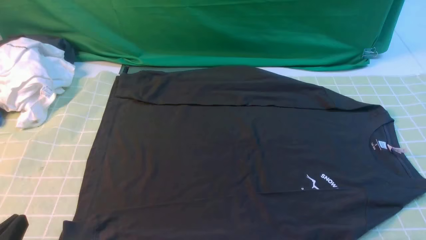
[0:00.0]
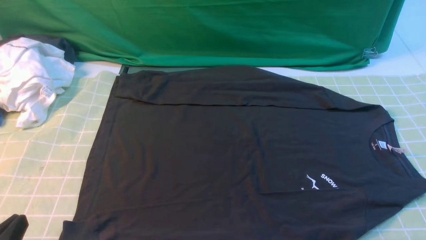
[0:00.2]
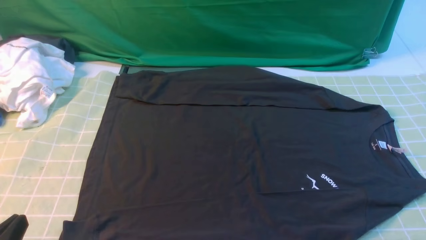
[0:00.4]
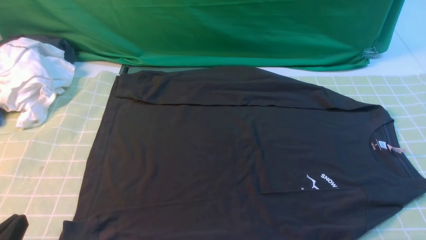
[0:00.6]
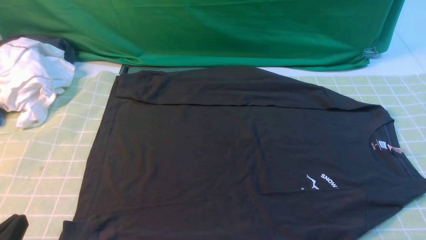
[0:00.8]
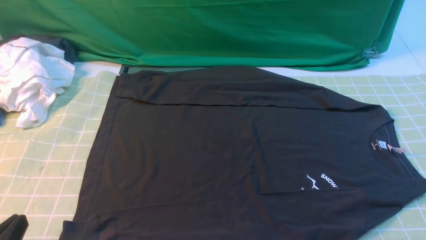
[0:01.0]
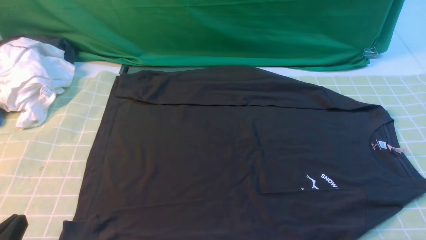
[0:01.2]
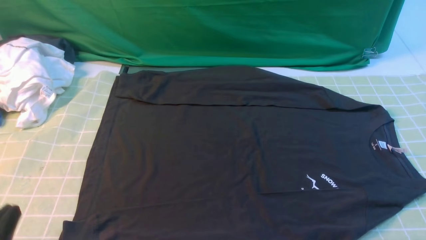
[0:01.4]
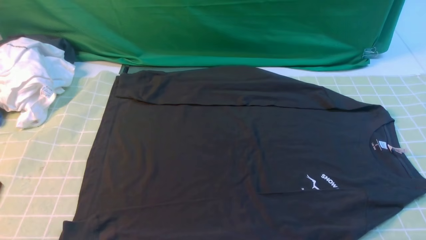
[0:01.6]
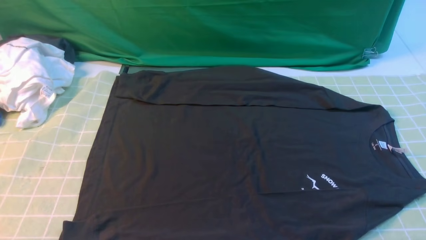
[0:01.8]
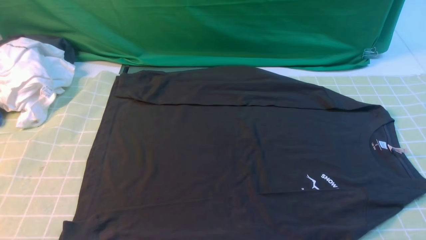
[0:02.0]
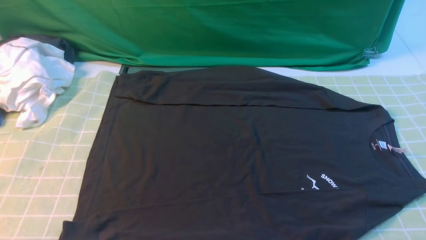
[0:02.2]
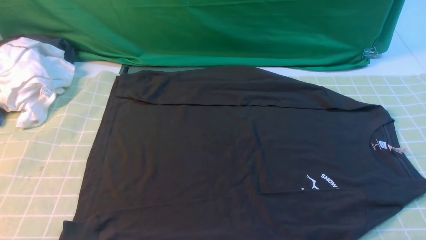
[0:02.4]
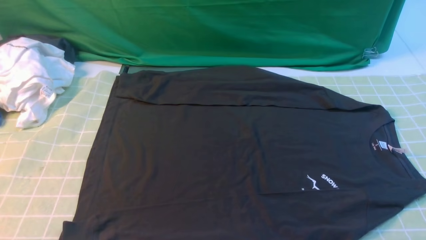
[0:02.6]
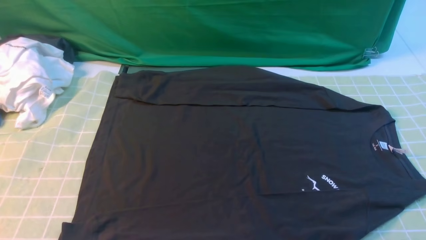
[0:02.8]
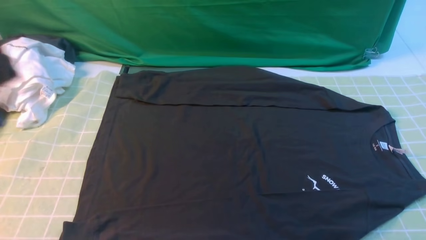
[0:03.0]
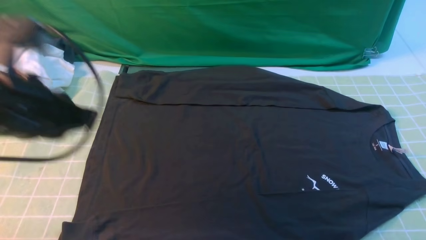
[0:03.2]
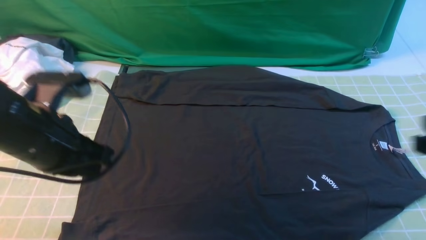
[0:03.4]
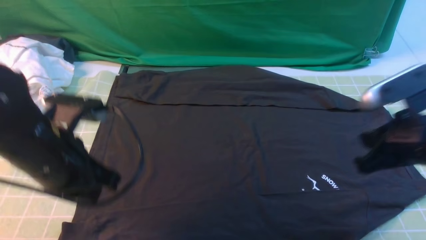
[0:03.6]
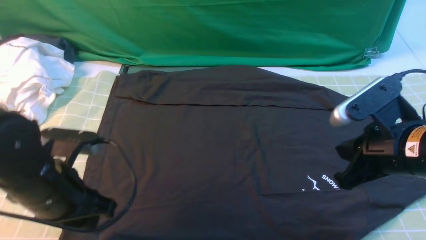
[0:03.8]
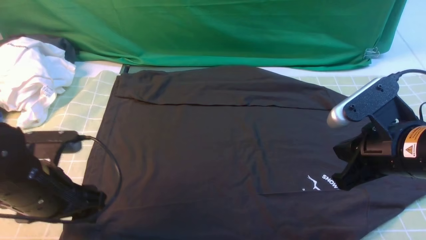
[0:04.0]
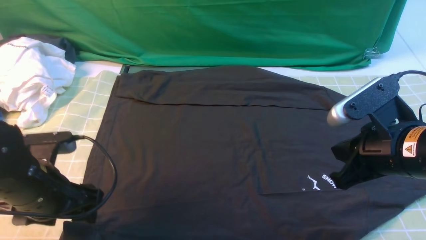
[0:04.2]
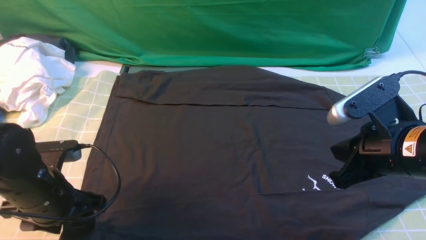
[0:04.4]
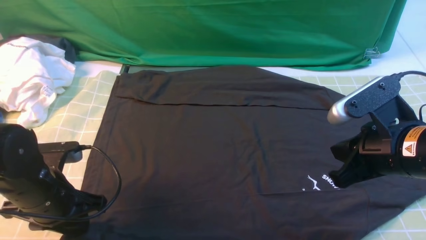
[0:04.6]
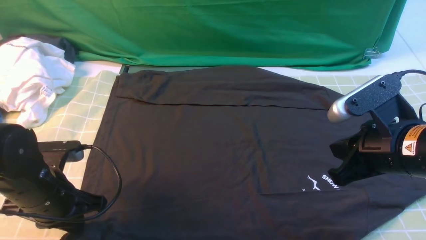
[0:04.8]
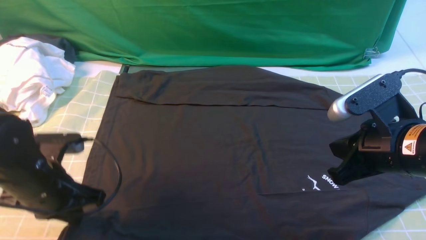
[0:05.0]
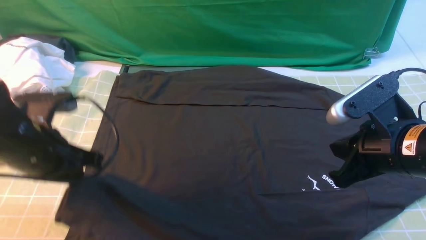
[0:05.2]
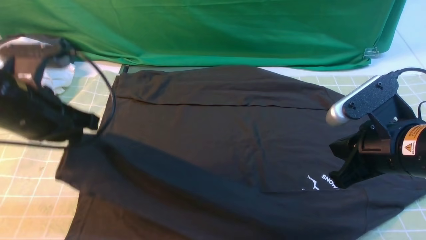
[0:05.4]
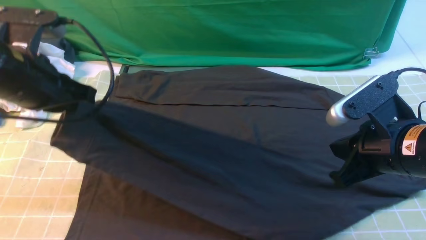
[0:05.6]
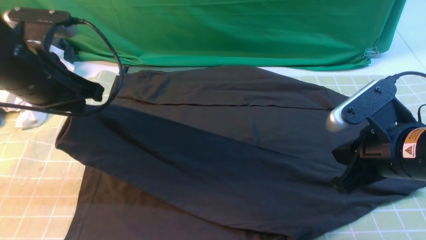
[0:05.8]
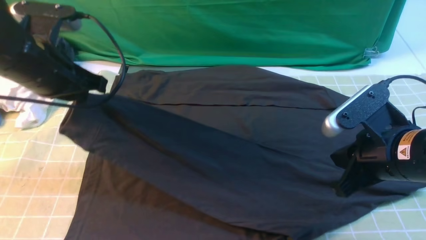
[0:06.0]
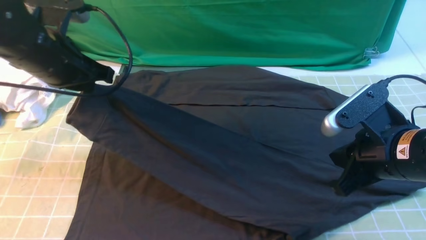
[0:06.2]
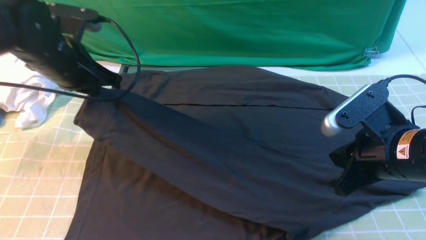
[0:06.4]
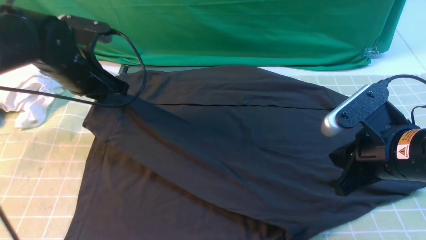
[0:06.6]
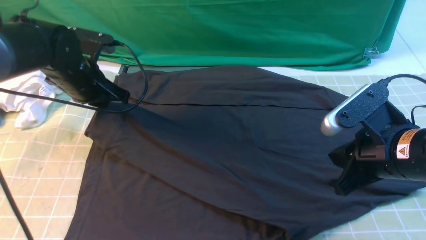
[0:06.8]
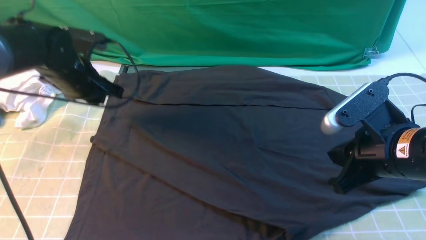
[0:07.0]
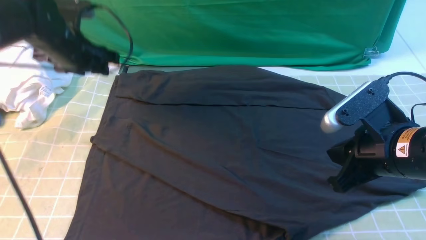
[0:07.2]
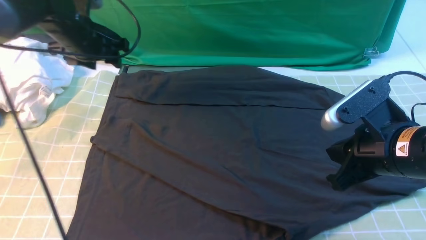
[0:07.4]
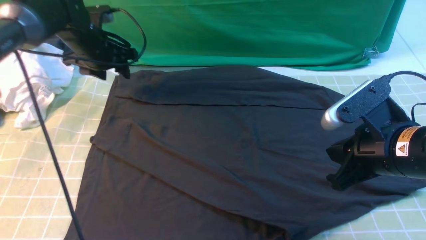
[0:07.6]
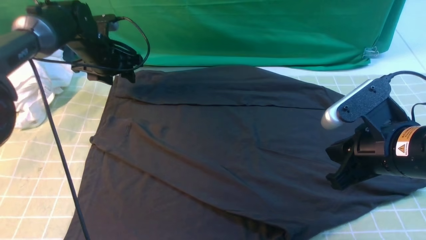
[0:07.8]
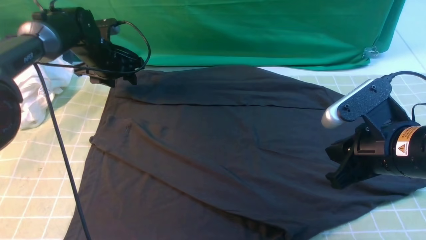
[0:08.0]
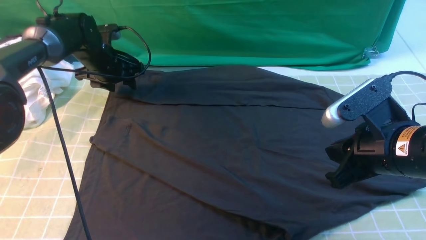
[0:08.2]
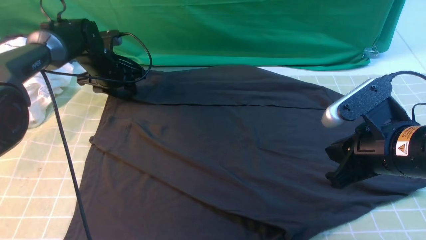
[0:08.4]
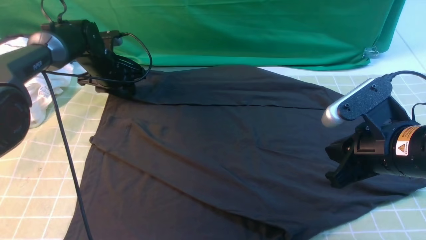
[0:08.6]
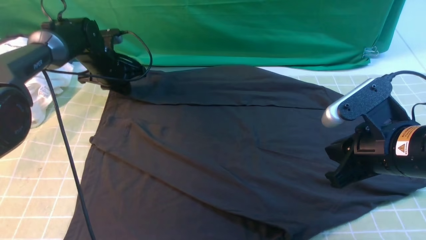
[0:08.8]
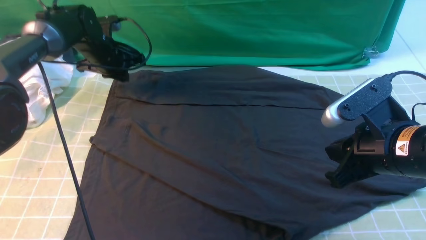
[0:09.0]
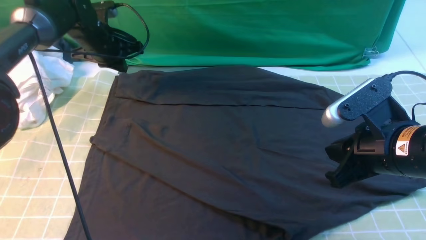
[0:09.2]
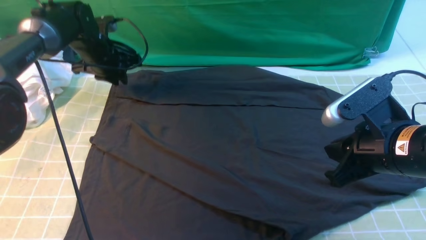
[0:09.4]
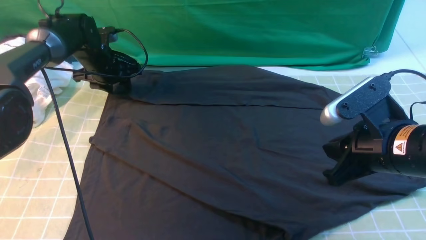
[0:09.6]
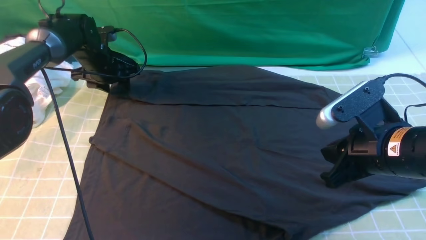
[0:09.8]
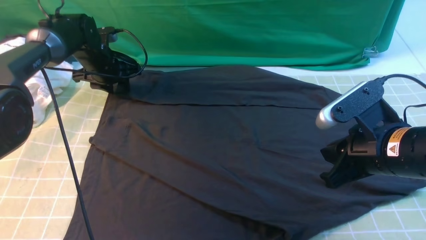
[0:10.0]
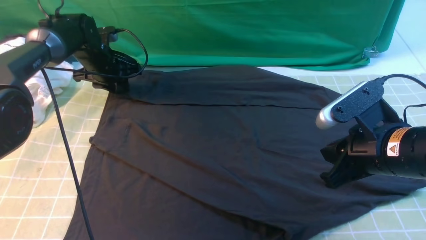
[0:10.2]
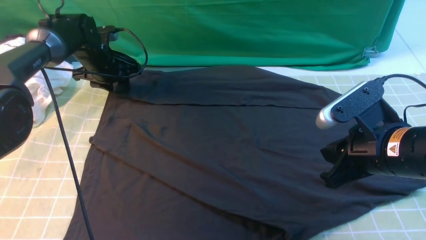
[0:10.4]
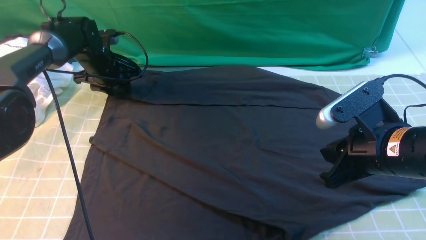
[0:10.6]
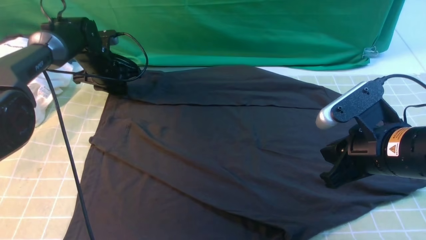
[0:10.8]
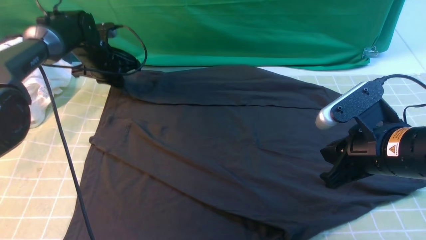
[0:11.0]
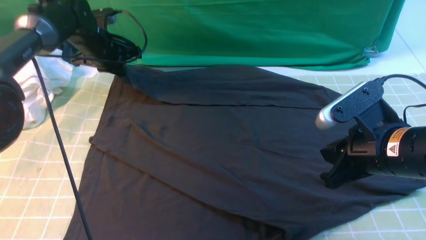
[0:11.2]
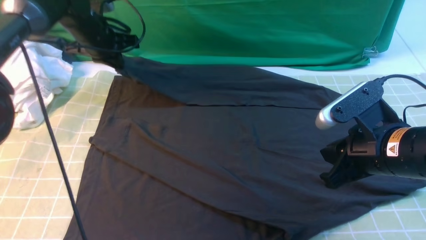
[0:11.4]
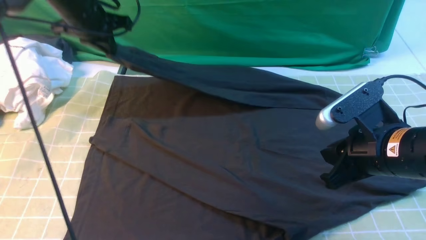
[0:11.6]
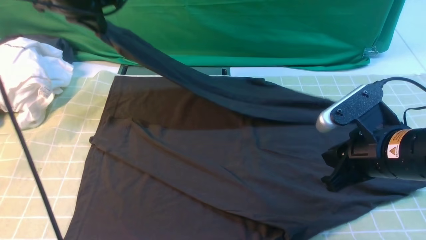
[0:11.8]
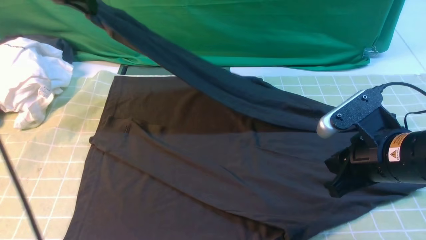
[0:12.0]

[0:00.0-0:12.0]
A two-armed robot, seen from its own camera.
Step, 0:00.0 to 0:04.8: use the left arm to clamp the cuff closest to it.
Step, 0:05.0 to 0:07.0: use the left arm to drag and place the cuff at the centered position on the left edge of the fabric.
Step, 0:07.2 to 0:11.0: use the left arm to clamp the cuff farthest from it.
0:01.6 to 0:03.0: The left gripper shifts some 20 cm upward and forward.
0:03.0 to 0:04.4: The right gripper shifts approximately 20 cm forward, to the left and downward, while the left gripper moves downward, approximately 20 cm, and opens up.
0:04.4 to 0:06.0: The left gripper travels upward and forward by some 15 cm, and closes.
0:06.0 to 0:07.6: The left gripper shifts approximately 20 cm forward and downward, and opens up.
0:07.6 to 0:09.0: The left gripper closes up.
0:09.0 to 0:10.4: The left gripper opens up.
0:10.4 to 0:12.0: The left gripper heads upward and backward, covering approximately 25 cm, and closes.

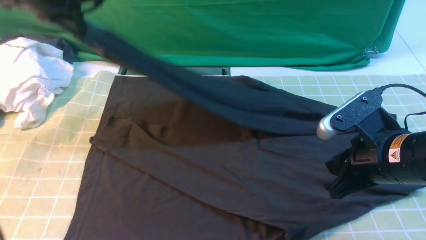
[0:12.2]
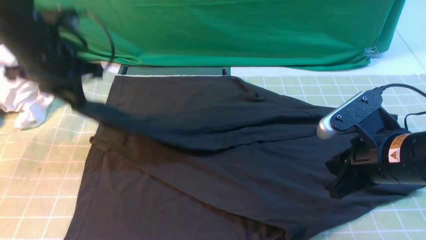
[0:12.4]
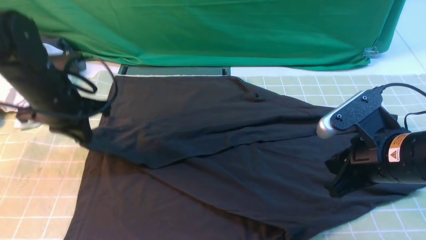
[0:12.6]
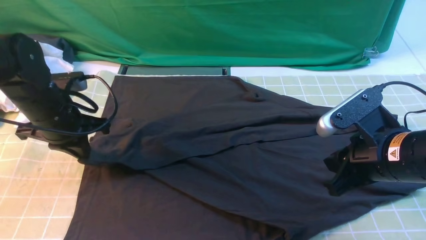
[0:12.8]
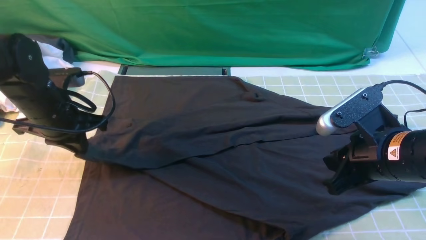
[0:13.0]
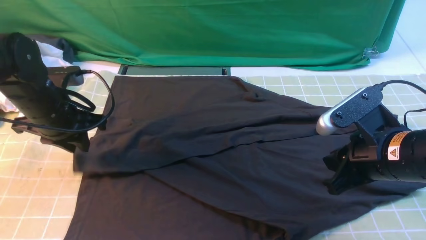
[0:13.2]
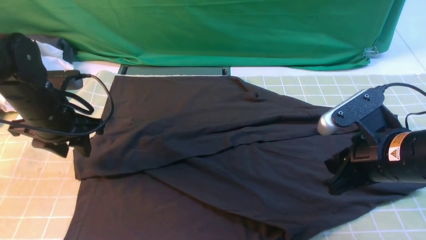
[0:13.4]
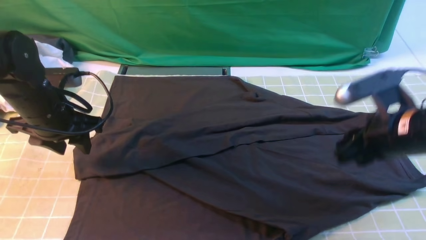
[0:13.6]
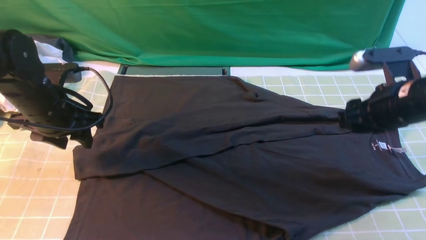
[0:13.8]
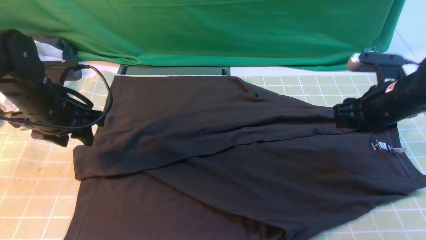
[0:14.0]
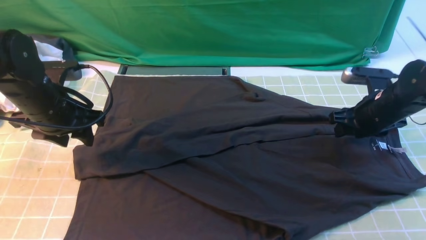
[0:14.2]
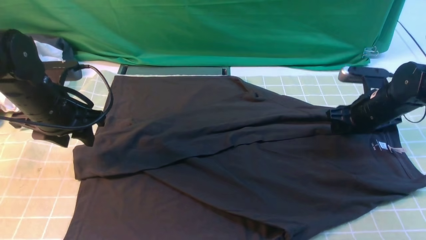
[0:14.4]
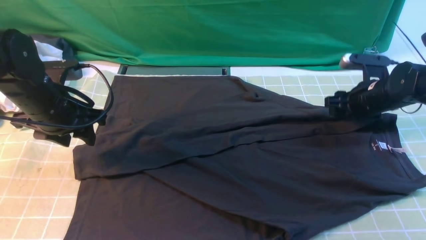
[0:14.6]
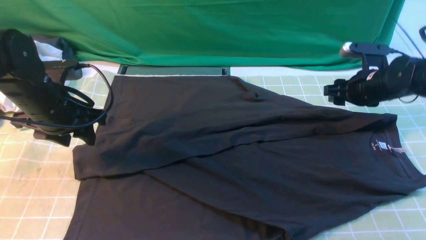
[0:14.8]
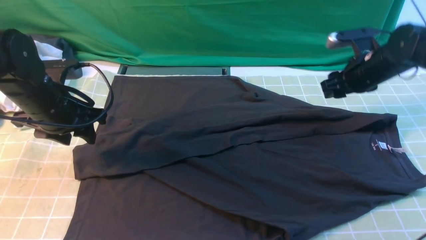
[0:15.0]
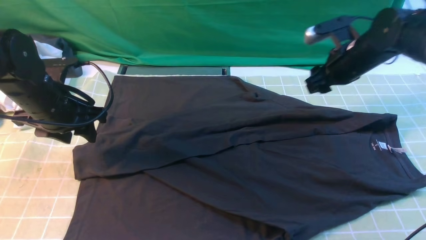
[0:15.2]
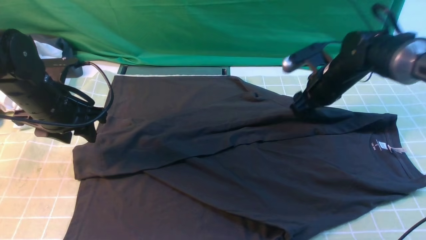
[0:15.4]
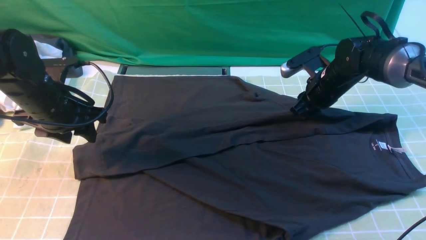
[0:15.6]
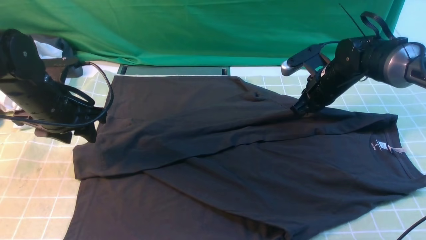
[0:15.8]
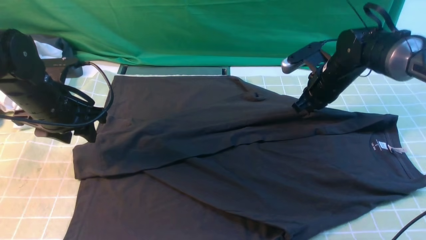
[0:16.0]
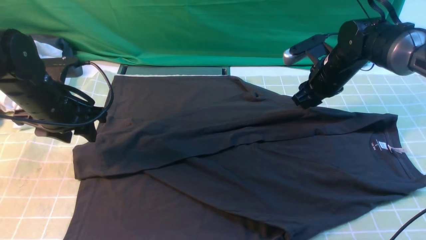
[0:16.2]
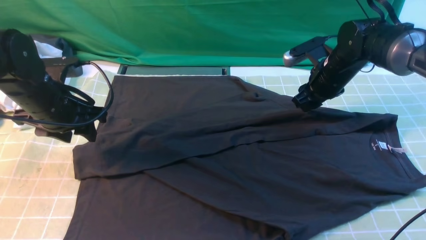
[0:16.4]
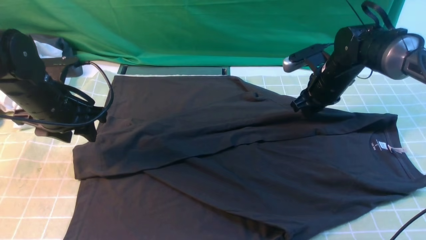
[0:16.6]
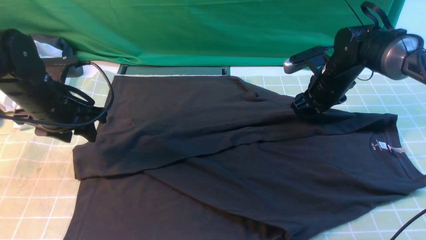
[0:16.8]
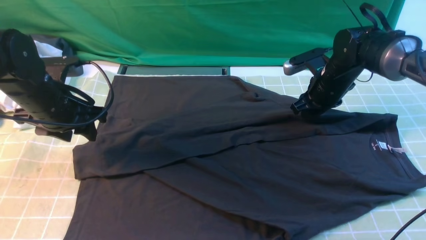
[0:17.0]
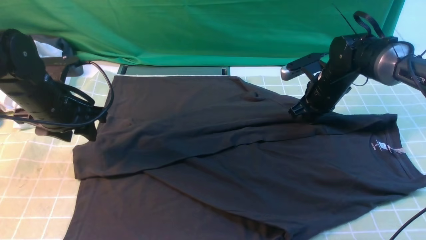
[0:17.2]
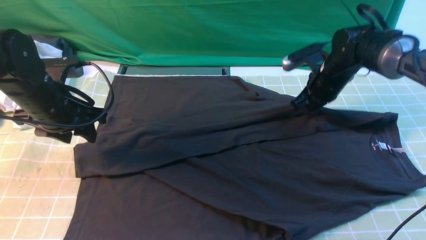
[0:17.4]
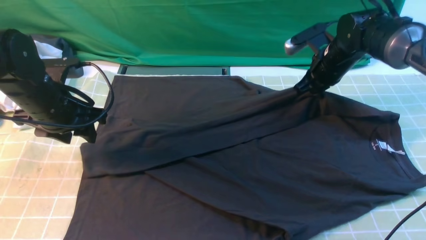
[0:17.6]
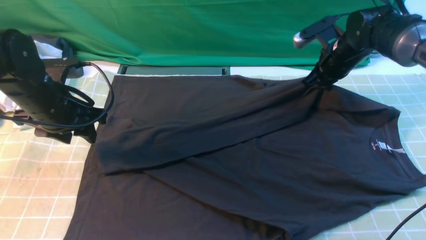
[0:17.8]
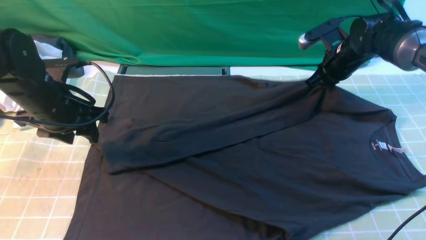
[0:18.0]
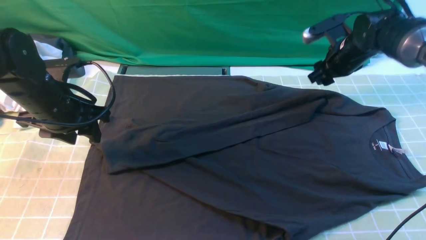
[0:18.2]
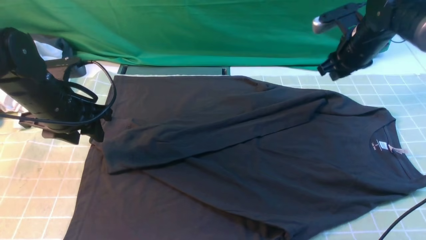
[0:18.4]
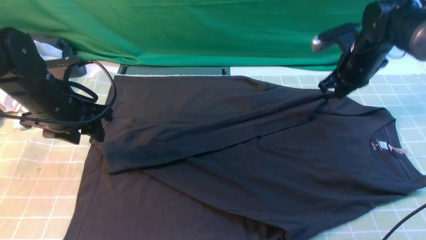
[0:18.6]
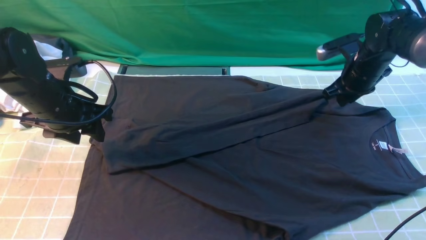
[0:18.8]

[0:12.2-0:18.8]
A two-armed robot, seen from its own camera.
0:12.2 to 0:13.8: The left gripper heads downward and backward, covering roughly 15 cm, and opens its fingers. The right gripper travels forward by roughly 10 cm, and opens.
0:13.8 to 0:15.4: The right gripper moves forward, approximately 15 cm.
0:15.4 to 0:17.2: The right gripper closes.
0:17.2 to 0:18.8: The right gripper shifts roughly 5 cm to the right.
